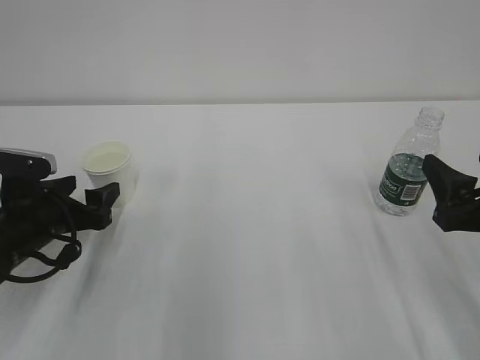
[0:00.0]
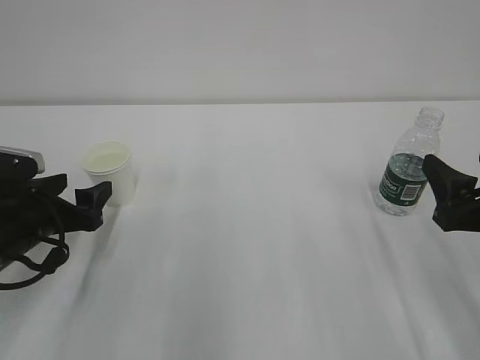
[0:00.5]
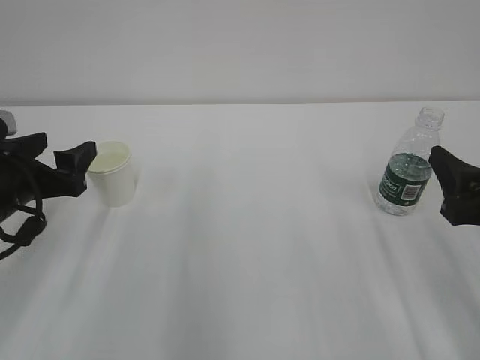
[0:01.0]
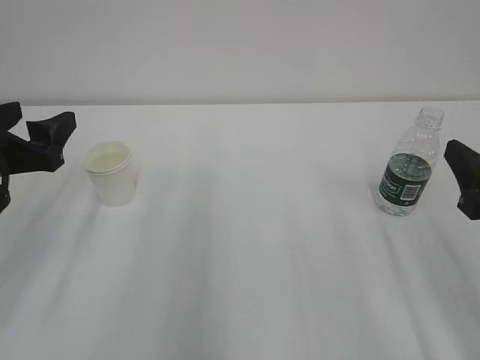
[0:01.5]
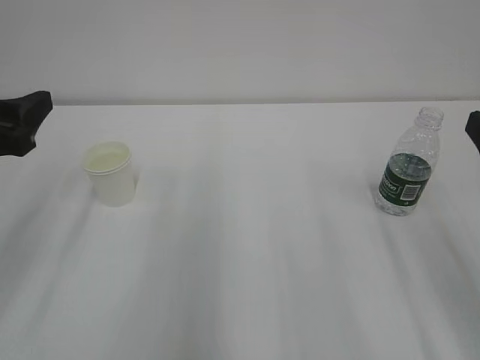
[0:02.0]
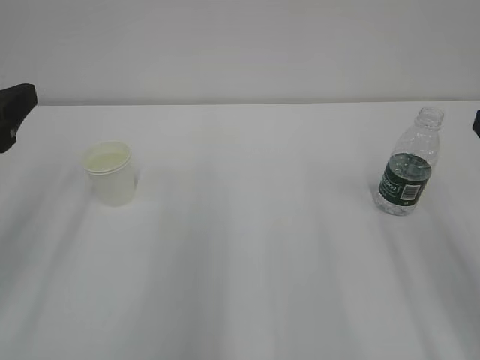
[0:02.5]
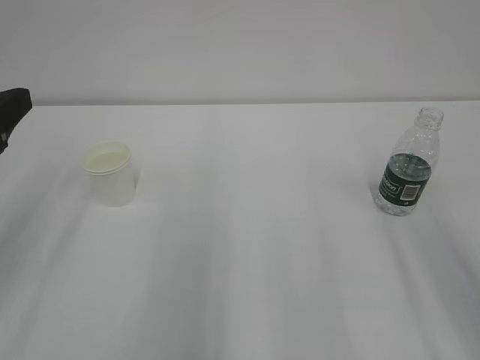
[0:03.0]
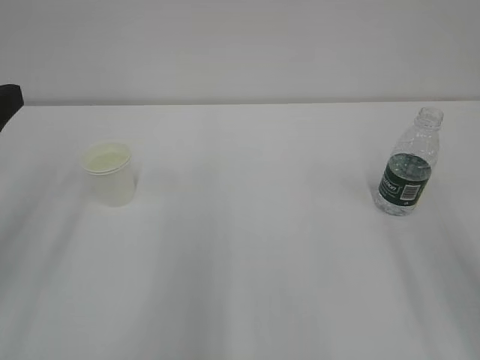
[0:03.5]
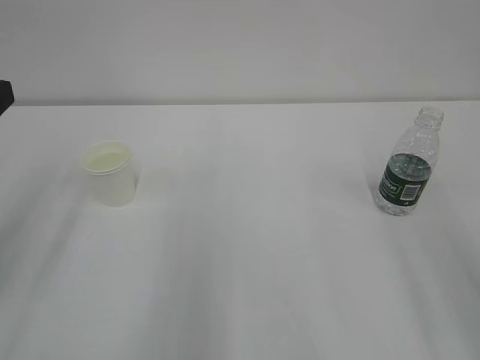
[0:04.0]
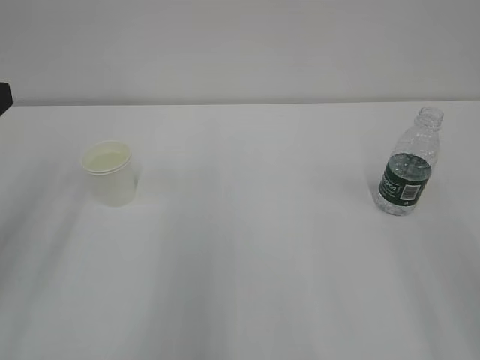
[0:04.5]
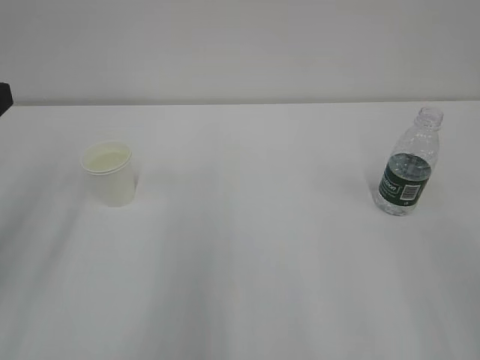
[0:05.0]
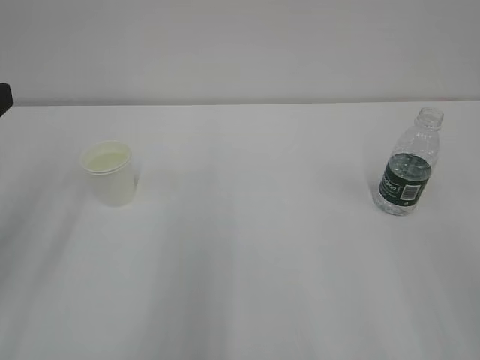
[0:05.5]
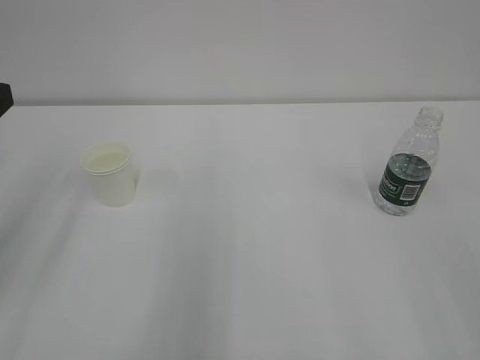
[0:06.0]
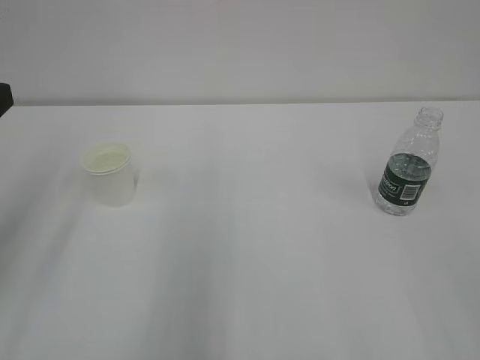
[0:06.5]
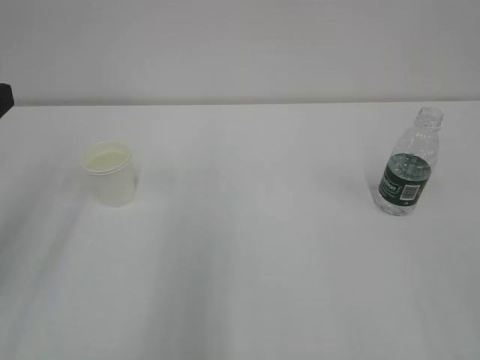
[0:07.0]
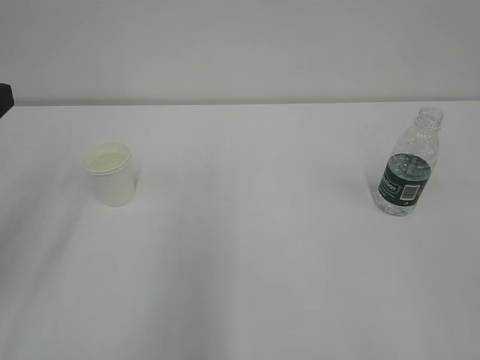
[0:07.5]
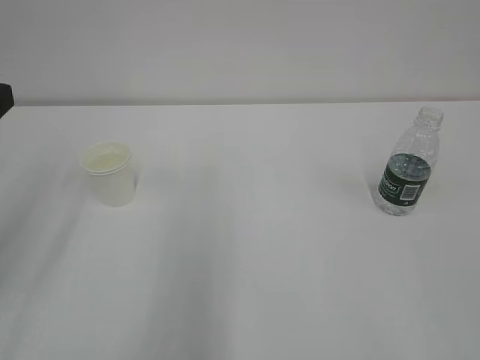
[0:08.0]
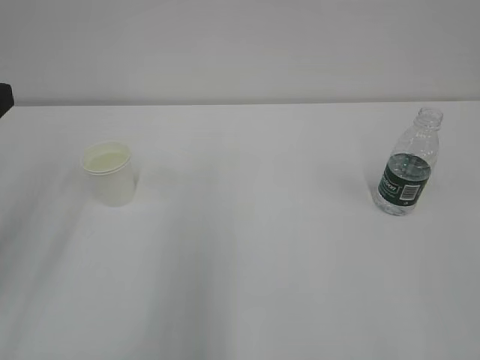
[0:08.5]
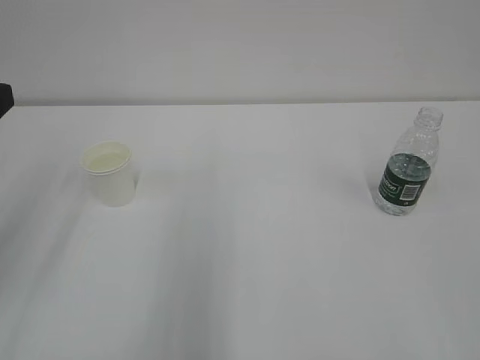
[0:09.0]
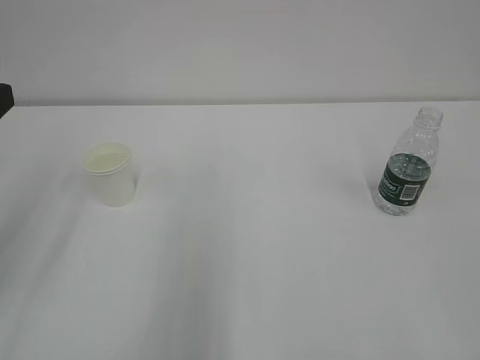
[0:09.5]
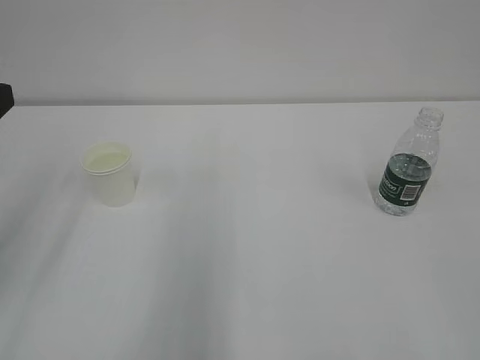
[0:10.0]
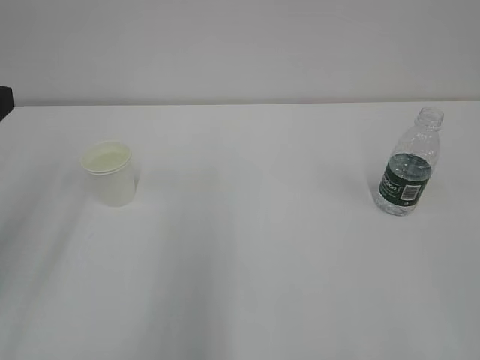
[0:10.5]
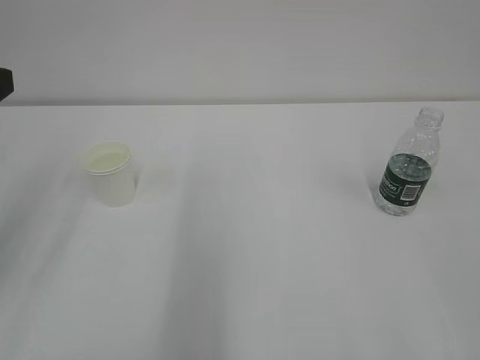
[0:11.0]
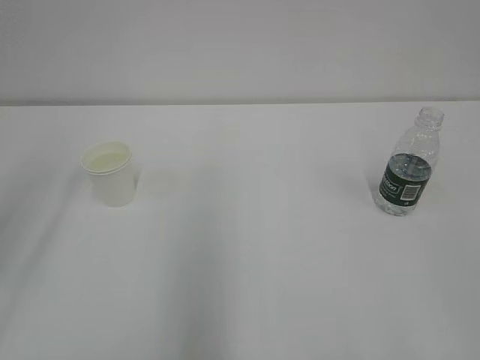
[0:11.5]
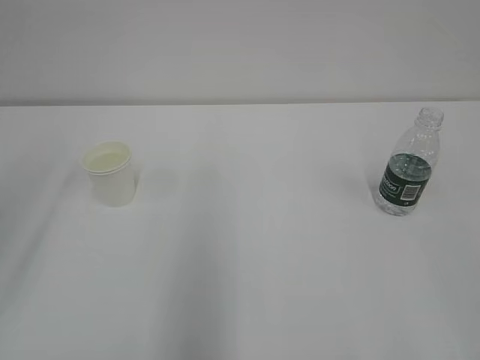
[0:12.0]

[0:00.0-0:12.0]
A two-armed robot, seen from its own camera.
0:00.0 to 0:02.0: The left gripper heads upward, covering approximately 15 cm. The right gripper goes about 5 cm upward.
0:02.0 to 0:04.0: The left gripper moves approximately 5 cm.
